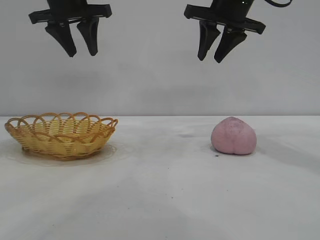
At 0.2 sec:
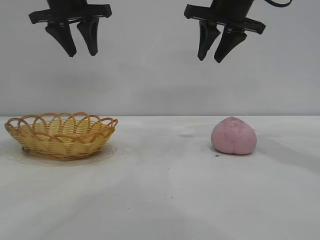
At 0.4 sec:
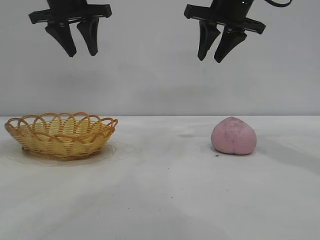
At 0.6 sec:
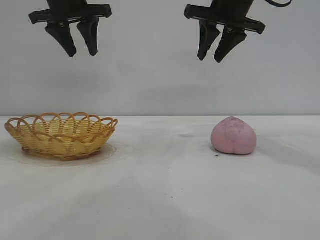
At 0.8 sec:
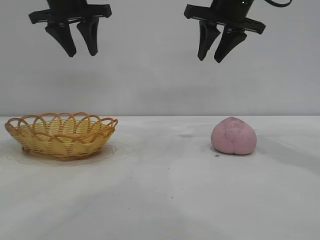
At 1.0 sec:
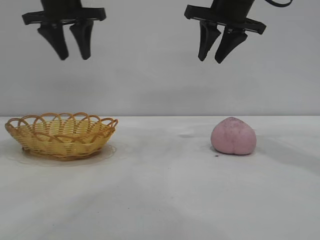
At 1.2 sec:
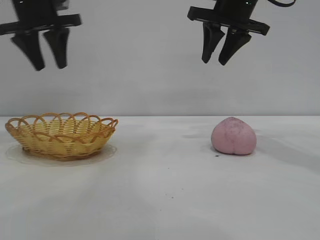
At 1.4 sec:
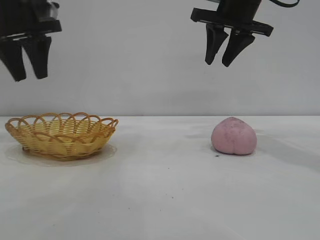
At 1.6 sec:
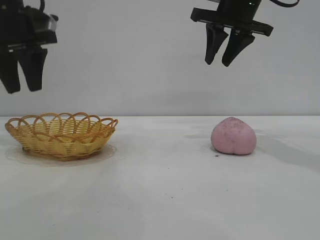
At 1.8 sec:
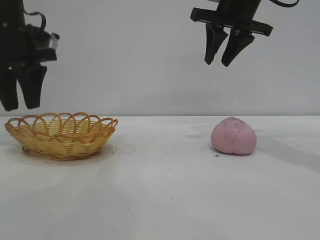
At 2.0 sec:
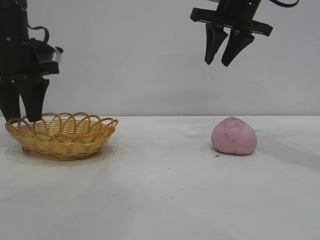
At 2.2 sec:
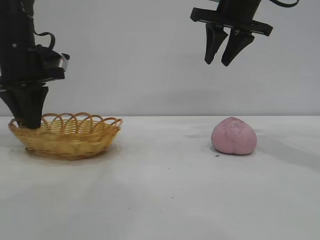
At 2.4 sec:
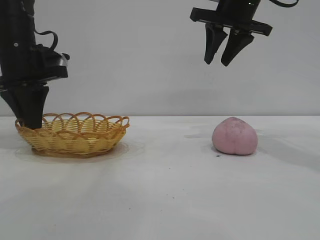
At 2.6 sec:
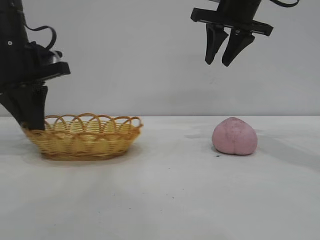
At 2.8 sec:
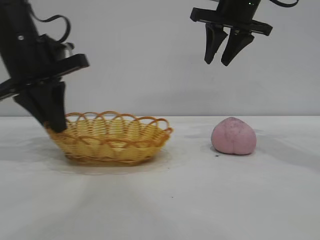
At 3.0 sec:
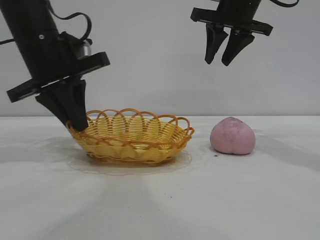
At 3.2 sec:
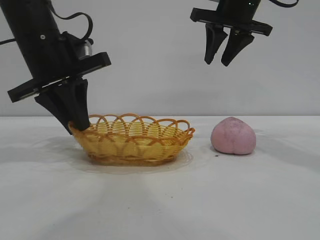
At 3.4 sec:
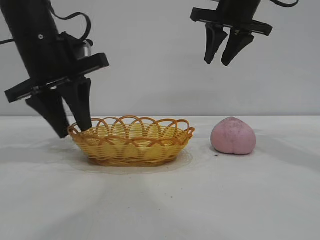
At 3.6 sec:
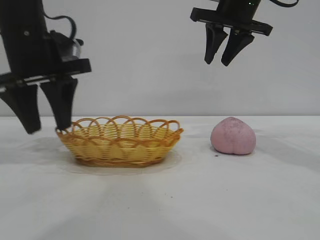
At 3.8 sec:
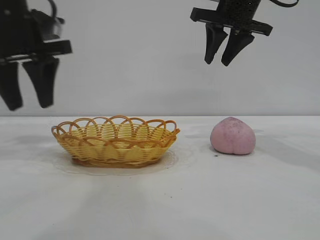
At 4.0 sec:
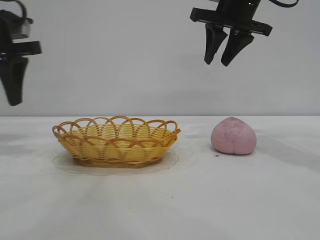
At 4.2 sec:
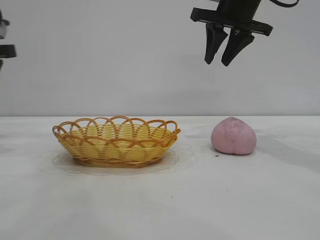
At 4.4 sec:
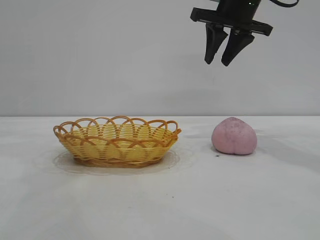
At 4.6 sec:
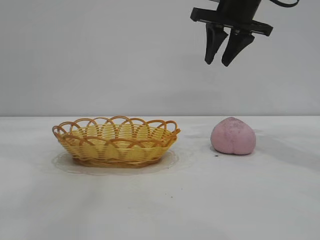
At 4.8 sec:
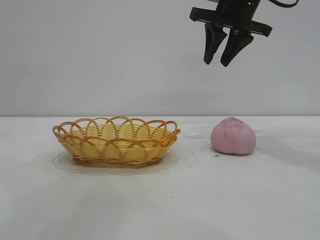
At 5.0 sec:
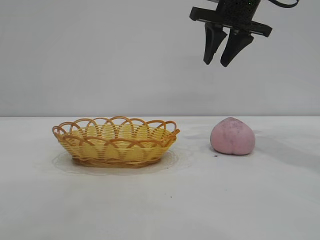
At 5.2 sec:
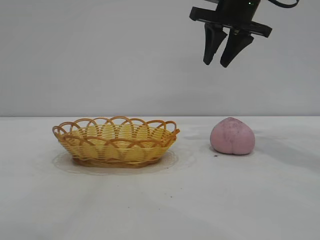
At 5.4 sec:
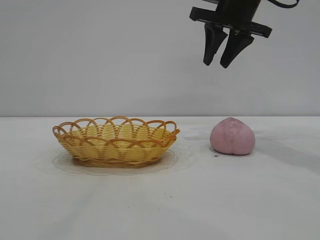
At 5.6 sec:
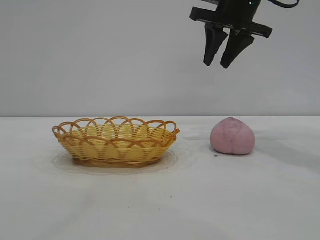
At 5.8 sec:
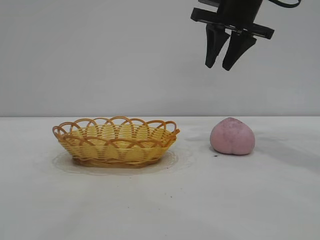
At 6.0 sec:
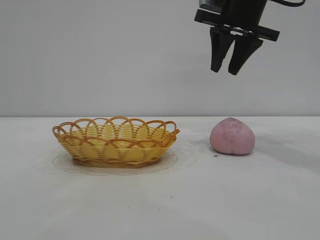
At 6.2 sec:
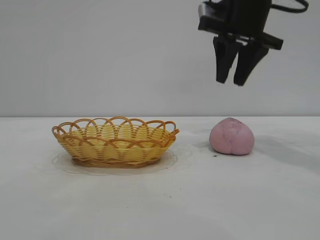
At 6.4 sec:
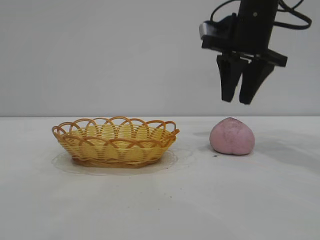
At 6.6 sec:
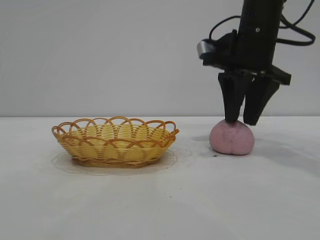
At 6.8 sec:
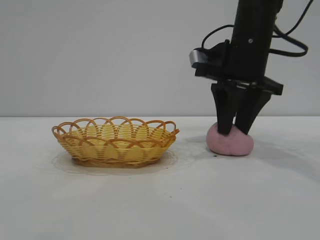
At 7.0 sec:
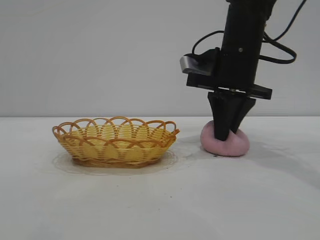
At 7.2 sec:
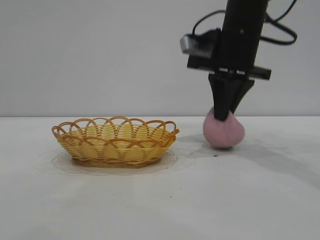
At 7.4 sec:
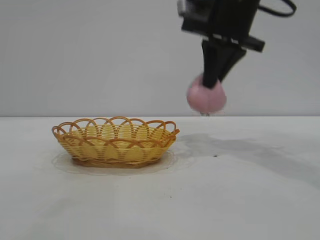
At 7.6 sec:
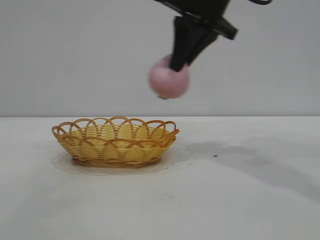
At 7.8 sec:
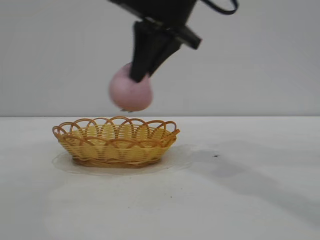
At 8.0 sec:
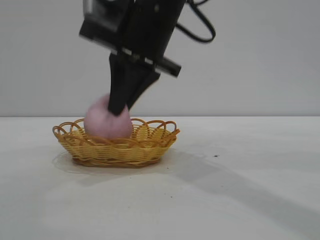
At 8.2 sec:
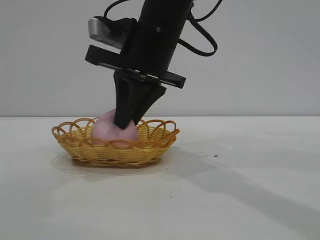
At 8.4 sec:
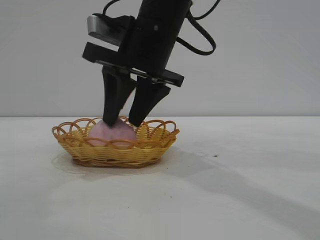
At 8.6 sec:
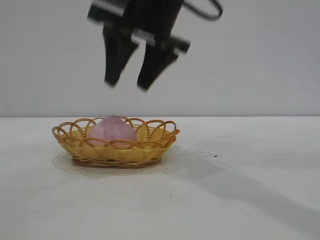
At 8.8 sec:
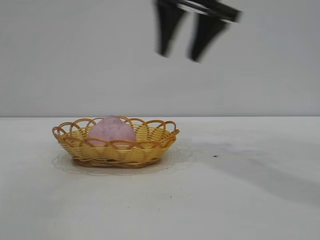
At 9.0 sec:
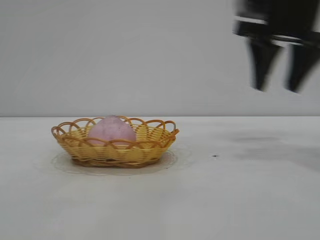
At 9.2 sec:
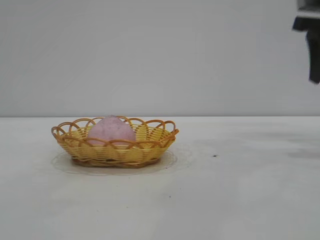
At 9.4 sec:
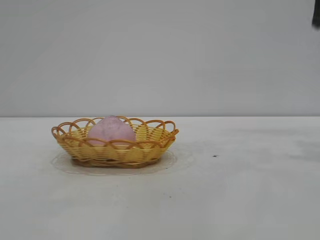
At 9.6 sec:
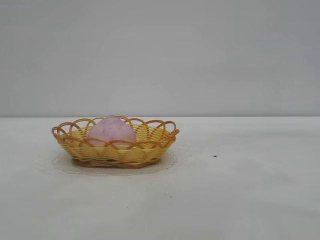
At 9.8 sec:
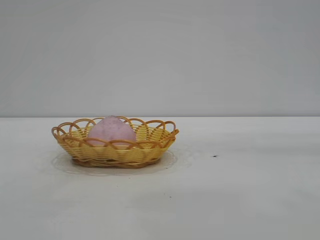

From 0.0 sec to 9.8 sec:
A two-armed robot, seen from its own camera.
Task of the whole recording: pick up the peach and put it into the basket.
Step, from 0.0 sec to 3.6 sec: Move the basket to the center of view.
Step, from 4.0 sec to 7.2 sec: Pick up the peach.
Step, from 7.4 sec to 8.4 sec: place the peach into the basket.
